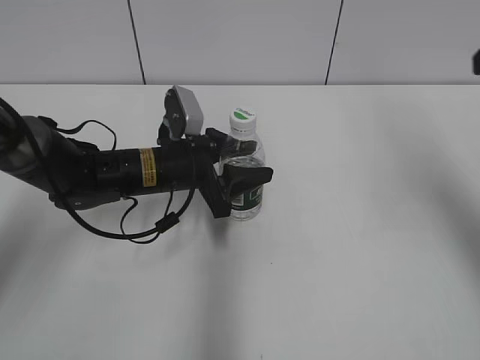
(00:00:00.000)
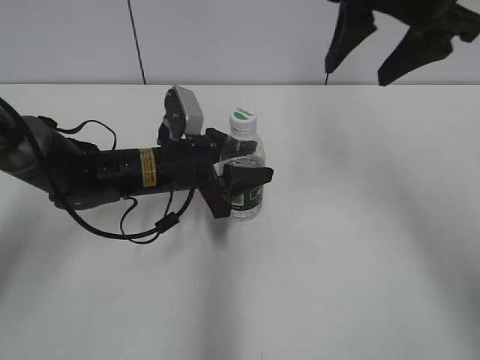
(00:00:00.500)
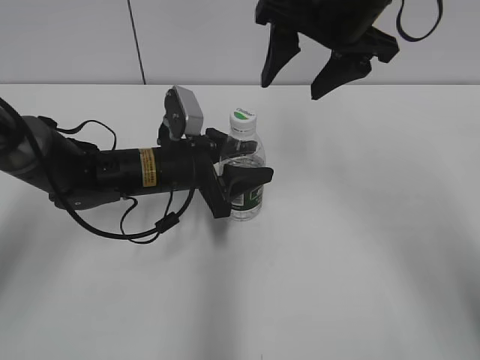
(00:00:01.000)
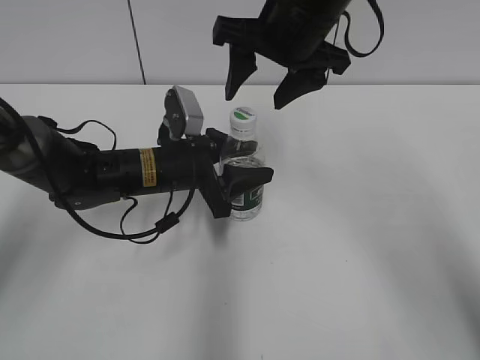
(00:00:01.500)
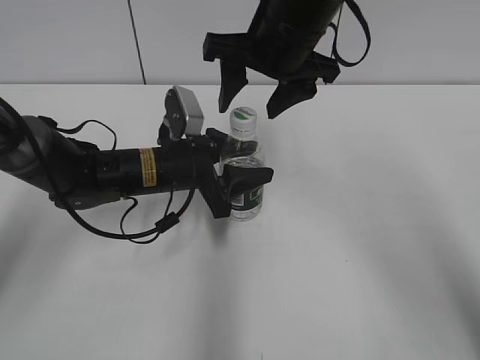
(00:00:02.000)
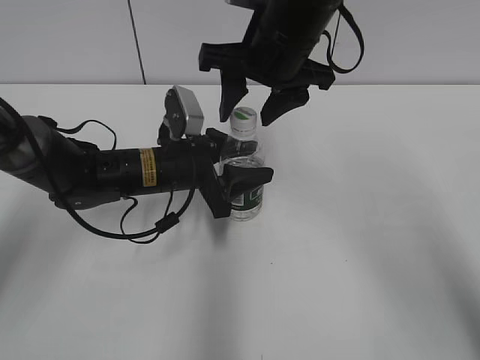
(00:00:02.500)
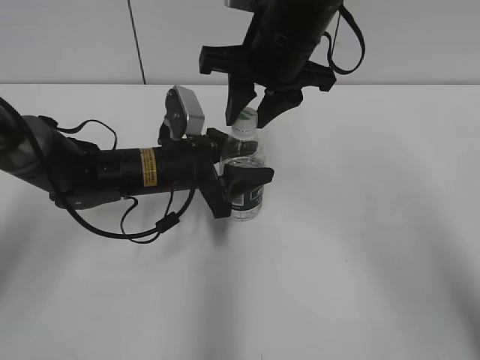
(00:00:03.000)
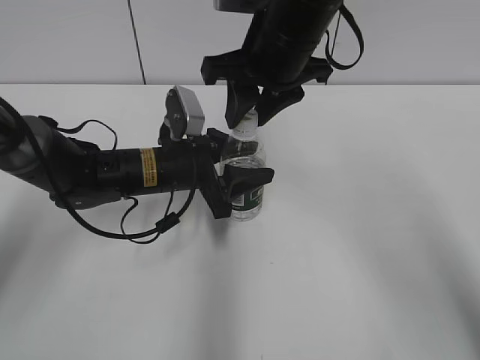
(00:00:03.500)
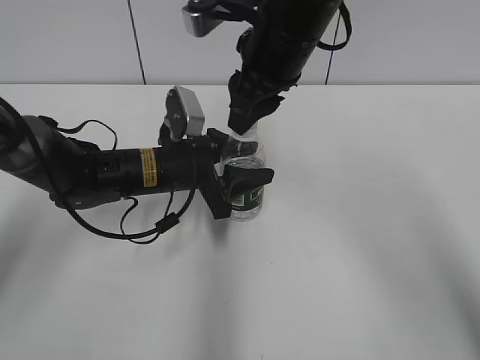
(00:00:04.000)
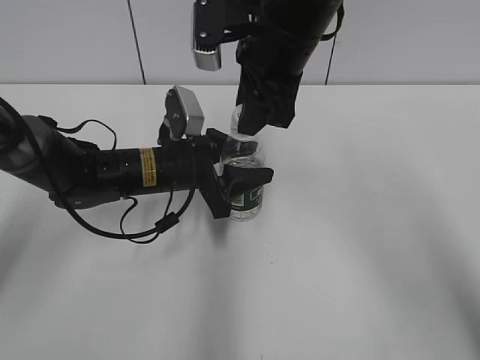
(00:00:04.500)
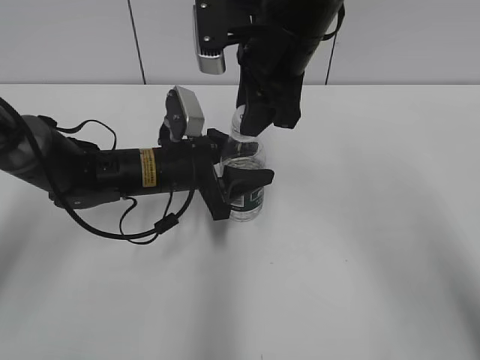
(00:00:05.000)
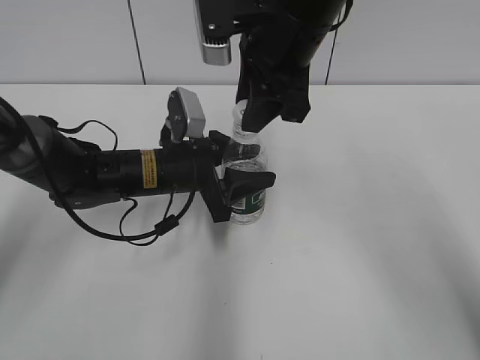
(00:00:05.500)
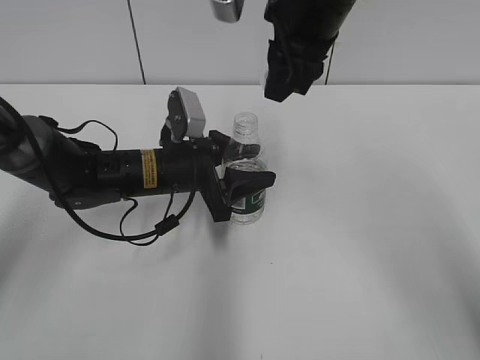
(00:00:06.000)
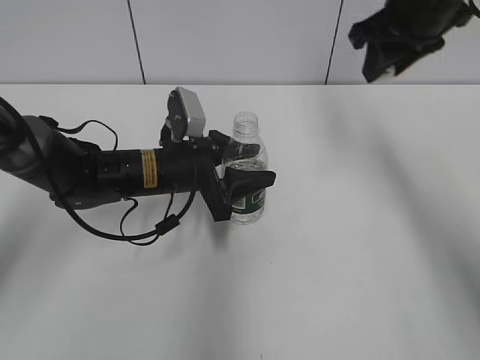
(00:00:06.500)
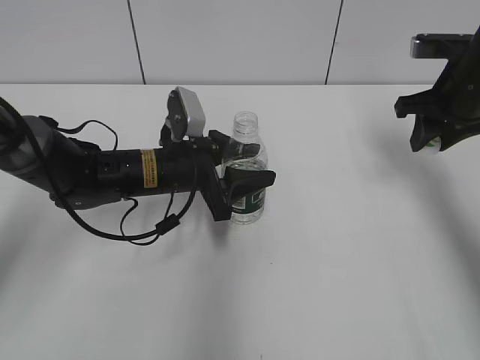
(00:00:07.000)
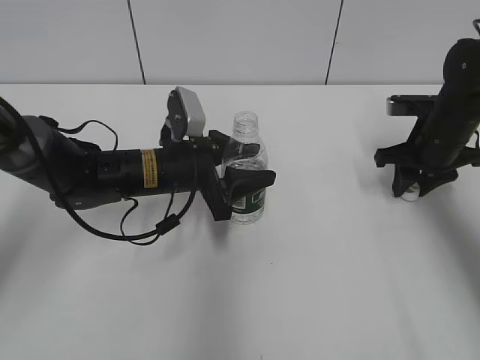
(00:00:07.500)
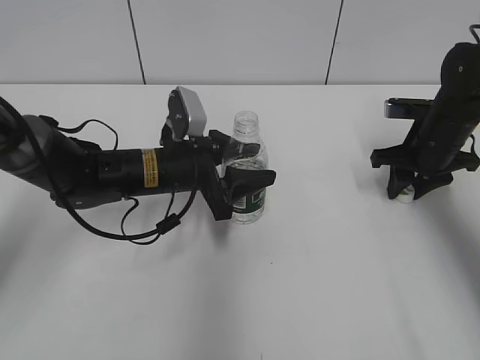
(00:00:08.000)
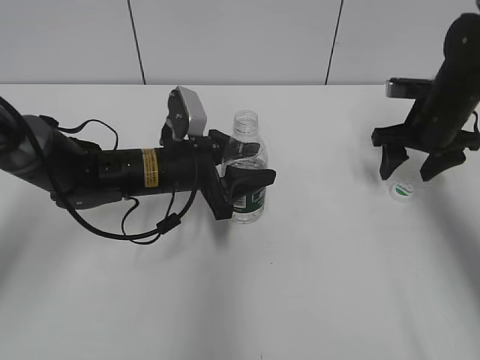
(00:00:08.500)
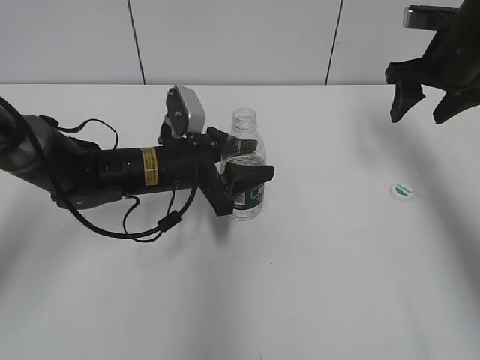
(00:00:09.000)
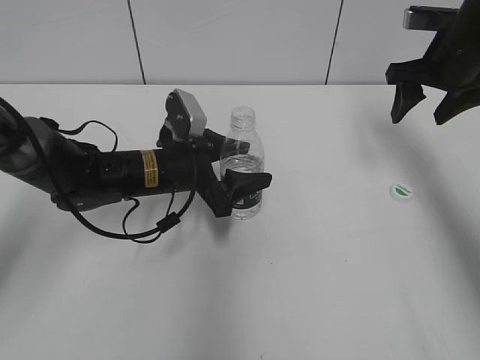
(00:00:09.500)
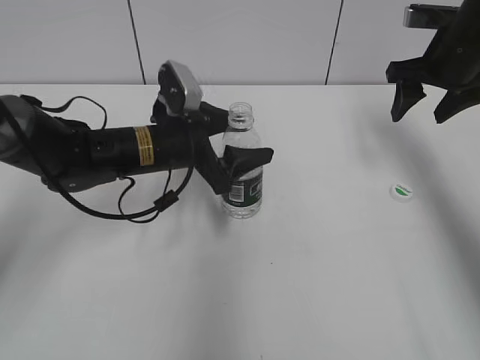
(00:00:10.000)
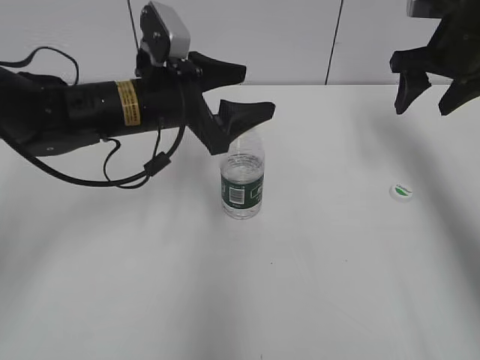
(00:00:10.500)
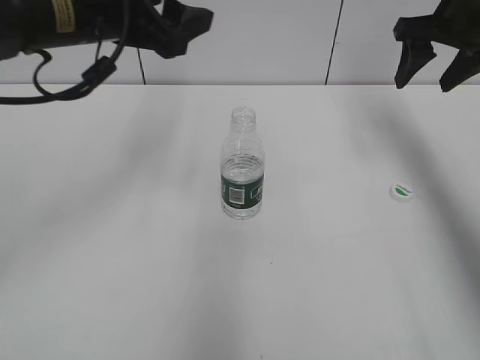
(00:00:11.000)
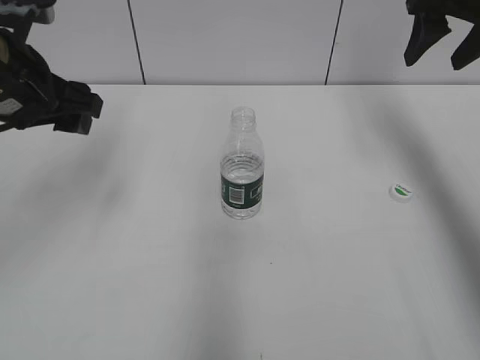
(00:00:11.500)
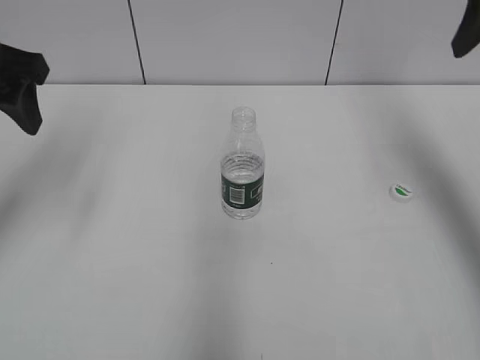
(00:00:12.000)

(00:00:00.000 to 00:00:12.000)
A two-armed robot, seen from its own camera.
Step, 00:00:00.000 - 00:00:06.000: Unscrew the bottle cap with the right gripper while holding the bottle with the left gripper.
Step, 00:00:06.500 - 00:00:08.500: Place the bottle cap on the table with the right gripper.
Step, 00:00:09.000 - 00:00:10.000: Place the bottle on the table with the left gripper.
00:00:00.000 - 00:00:02.000: The right gripper goes approximately 25 cm to the left, forward and downward.
00:00:02.000 - 00:00:04.000: The right gripper closes up.
00:00:06.000 - 00:00:08.000: The right gripper heads downward and to the right, covering roughly 30 cm.
00:00:08.000 - 00:00:10.000: The right gripper travels upward by some 10 cm, and opens its fingers; the left gripper opens its fingers.
00:00:10.000 - 00:00:12.000: The left gripper travels upward and to the left by about 25 cm. Meanwhile the right gripper goes about 15 cm upward and backward.

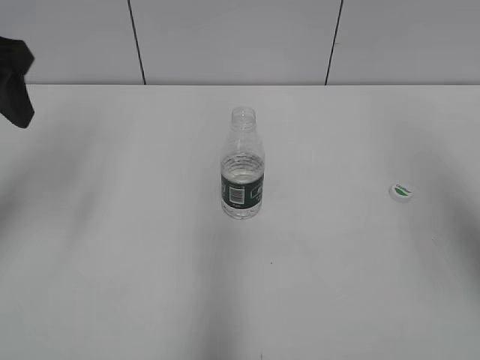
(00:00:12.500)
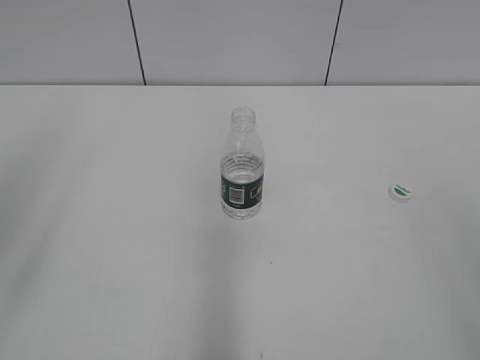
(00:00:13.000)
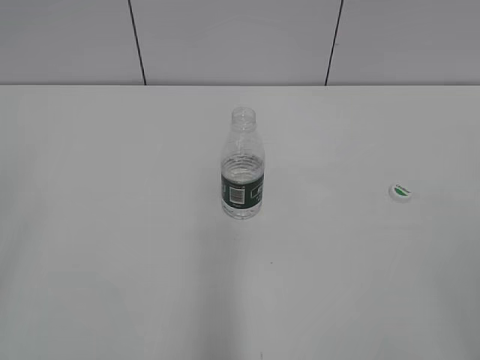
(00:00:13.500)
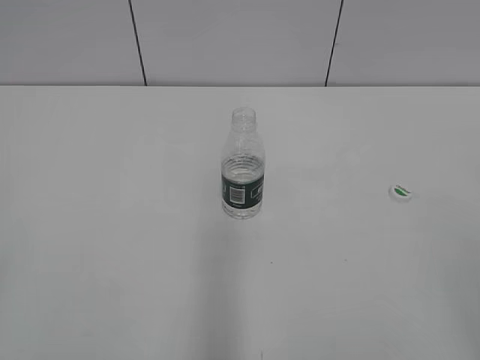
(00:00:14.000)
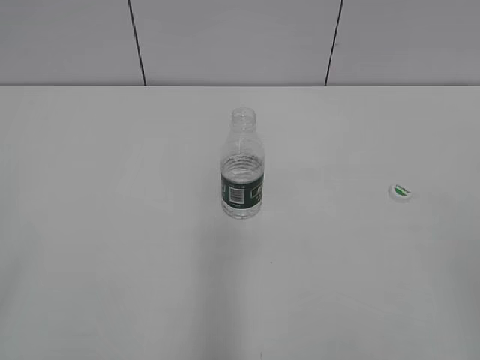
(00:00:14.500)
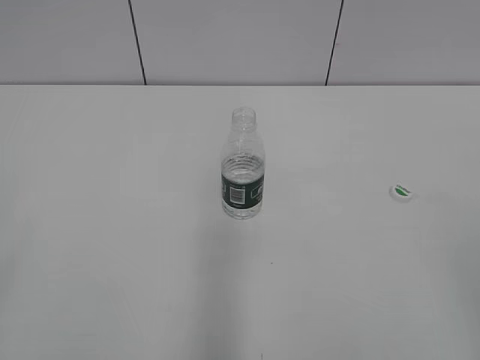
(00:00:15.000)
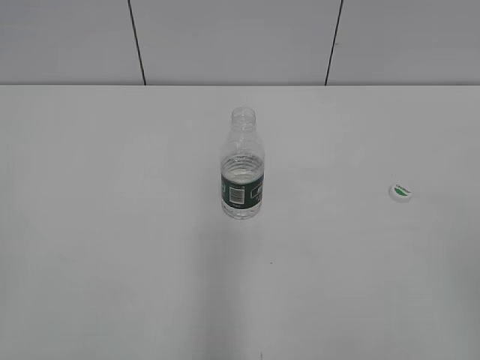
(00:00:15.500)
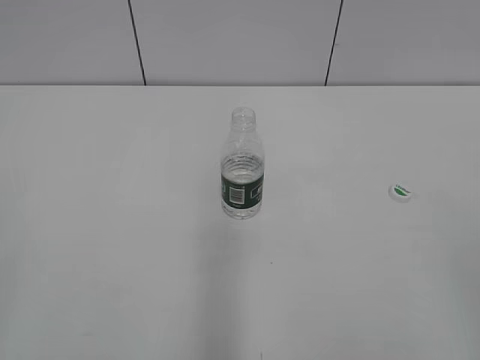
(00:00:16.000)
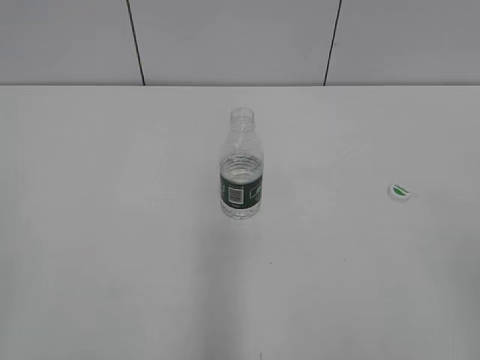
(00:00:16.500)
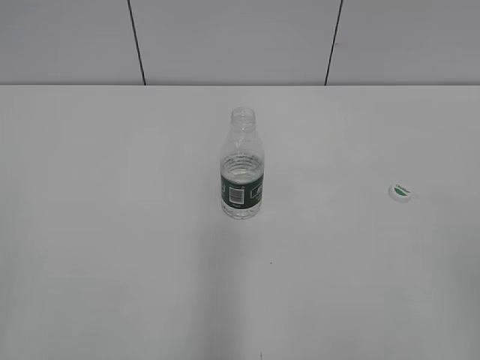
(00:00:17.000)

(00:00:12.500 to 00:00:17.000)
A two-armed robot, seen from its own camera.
00:00:12.500 - 00:00:14.500: The right gripper goes roughly 20 cm backward and downward; the left gripper travels backward by approximately 30 cm.

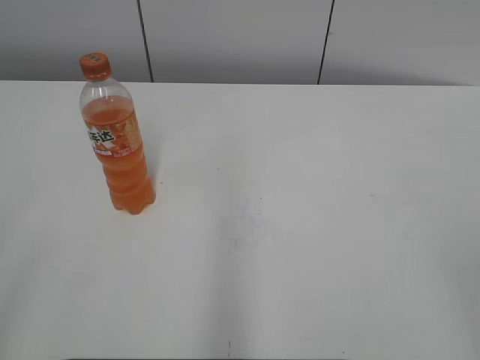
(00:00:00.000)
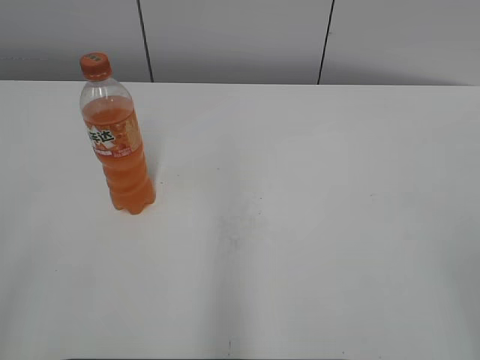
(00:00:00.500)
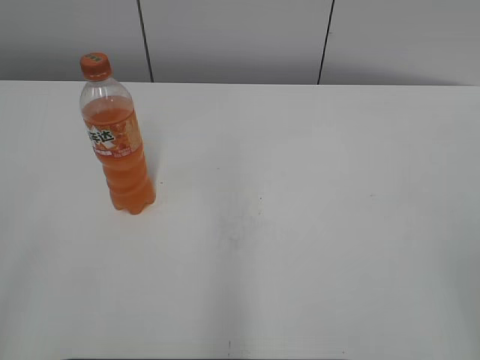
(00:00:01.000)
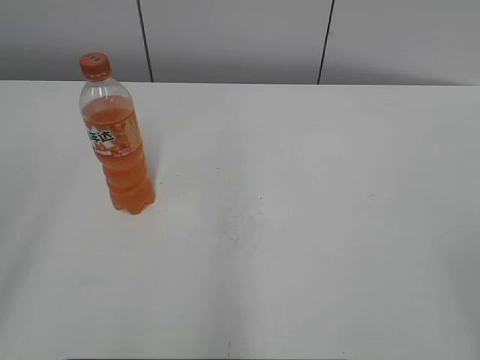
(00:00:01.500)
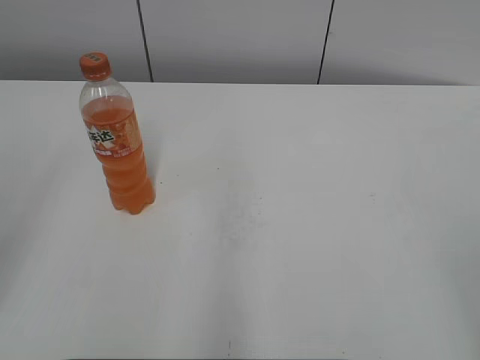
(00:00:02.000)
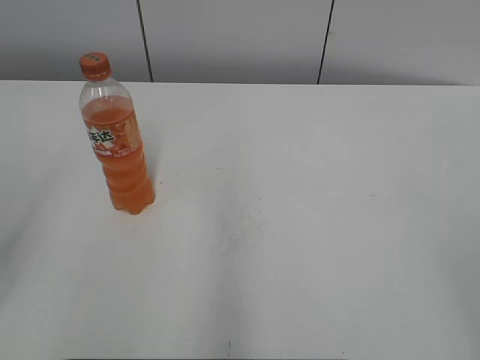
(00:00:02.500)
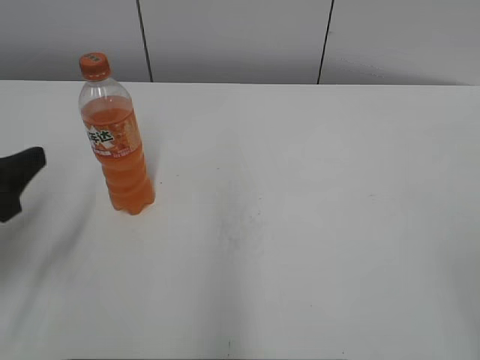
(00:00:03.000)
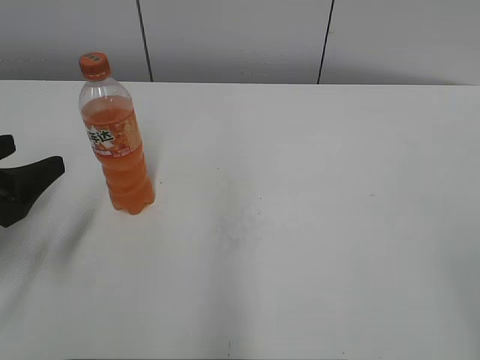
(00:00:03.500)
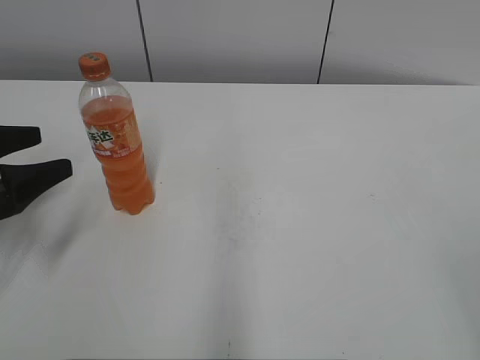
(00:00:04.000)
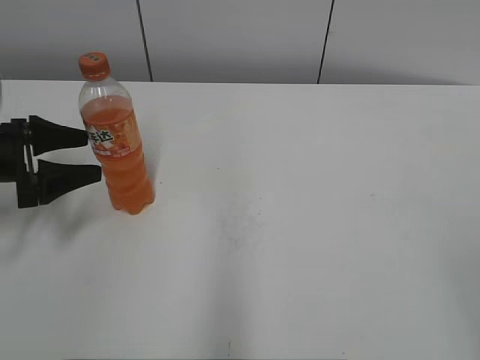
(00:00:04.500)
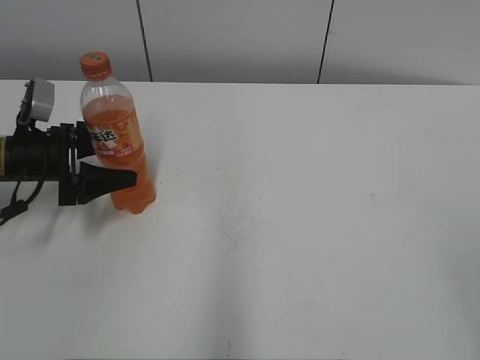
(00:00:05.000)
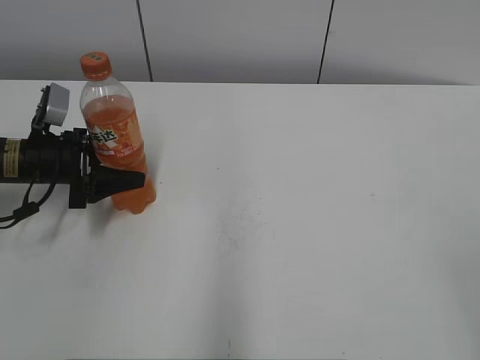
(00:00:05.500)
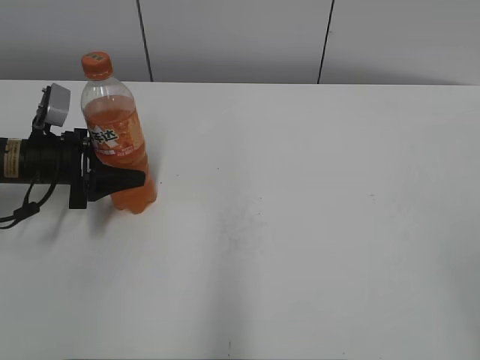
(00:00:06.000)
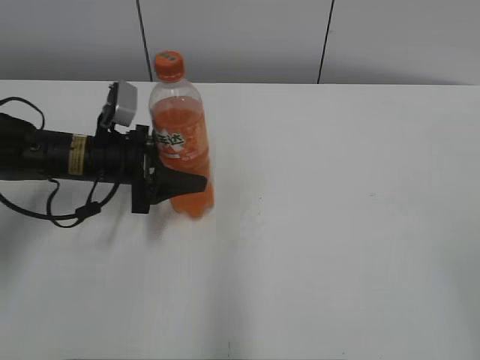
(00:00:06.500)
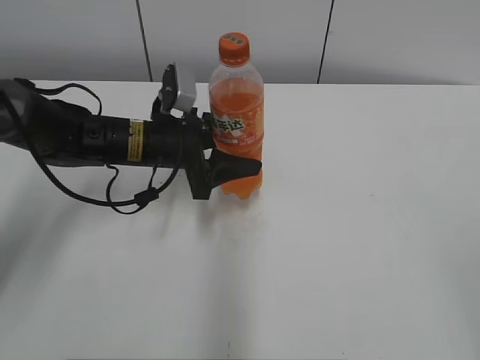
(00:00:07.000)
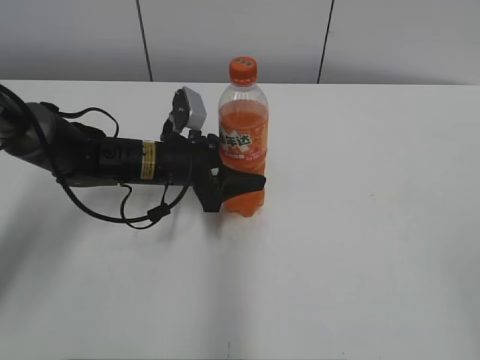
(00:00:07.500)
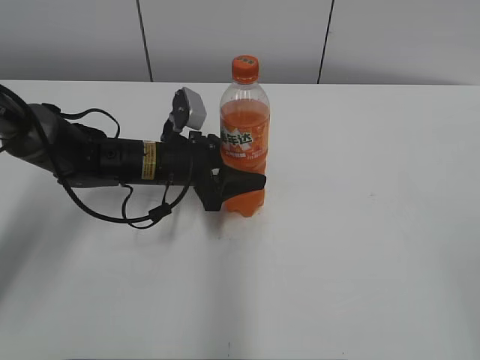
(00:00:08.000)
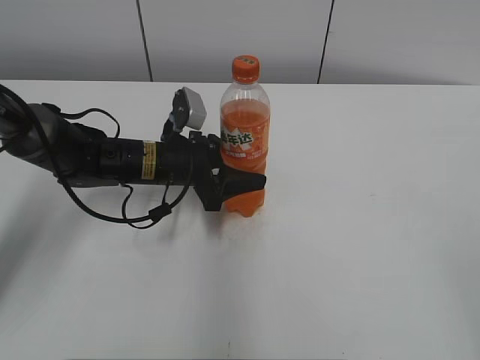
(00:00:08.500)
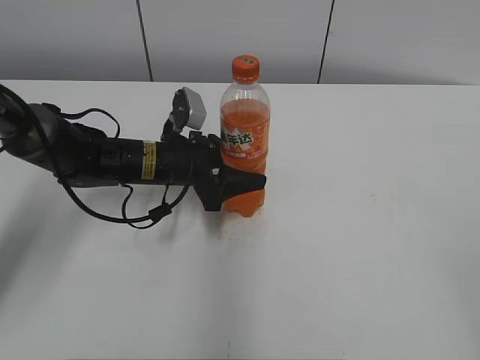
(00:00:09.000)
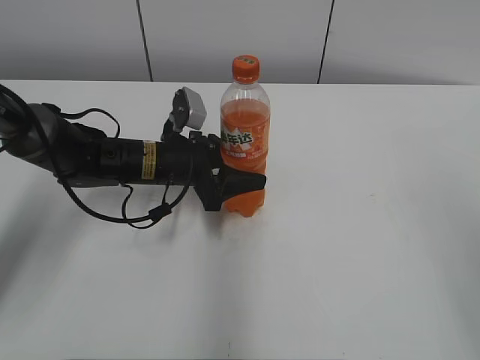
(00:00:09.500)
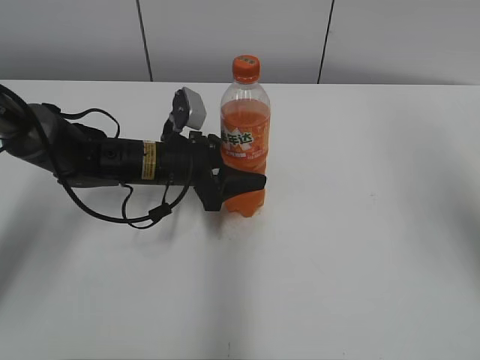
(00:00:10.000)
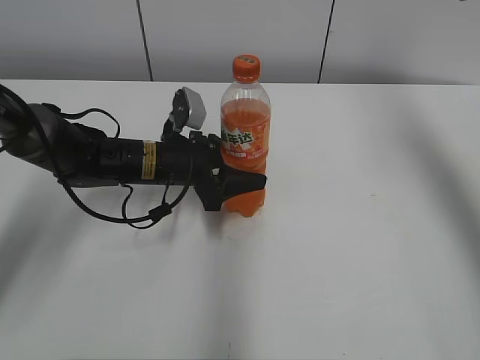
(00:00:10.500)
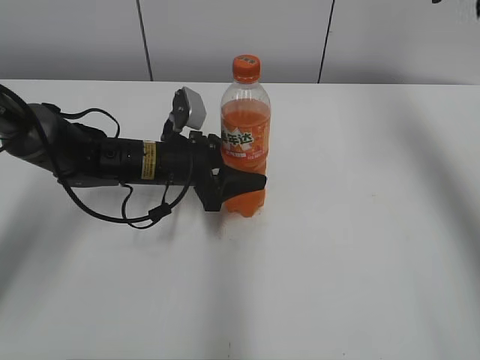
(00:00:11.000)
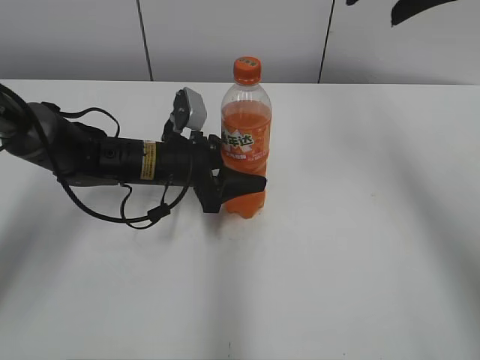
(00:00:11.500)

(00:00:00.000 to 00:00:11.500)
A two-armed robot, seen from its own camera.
Step, 00:00:00.000 - 00:00:05.500: Grab the Mirinda with the left hand.
Step, 00:00:06.000 - 00:00:08.000: Move the Mirinda from left to right.
00:00:02.000 - 00:00:04.000: The left gripper shifts about 20 cm downward and forward.
00:00:04.000 - 00:00:06.000: The left gripper heads forward, downward and to the right, covering approximately 15 cm, and closes.
00:00:06.000 - 00:00:07.500: The left gripper moves to the right, about 15 cm.
00:00:09.500 - 00:00:11.500: The right gripper is displaced forward by some 30 cm.
